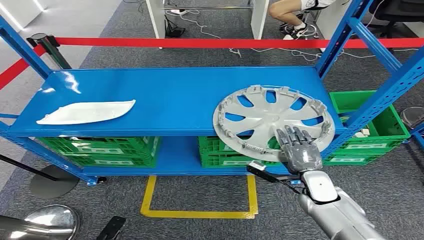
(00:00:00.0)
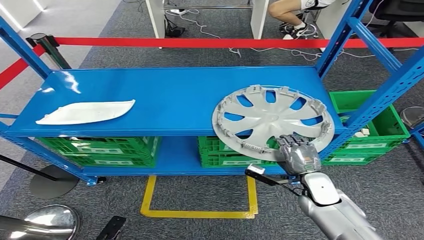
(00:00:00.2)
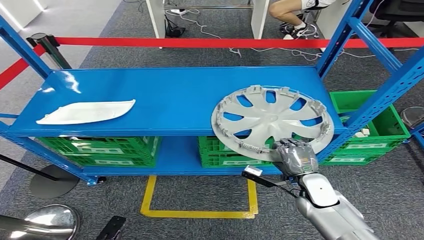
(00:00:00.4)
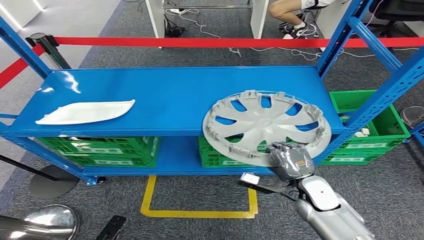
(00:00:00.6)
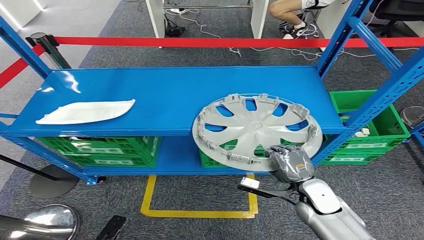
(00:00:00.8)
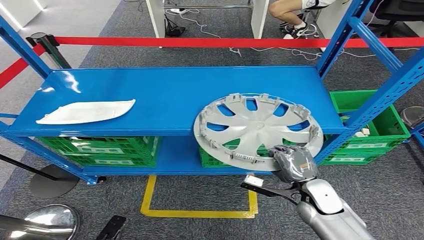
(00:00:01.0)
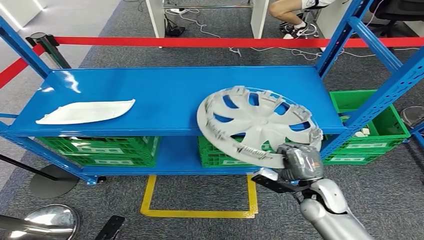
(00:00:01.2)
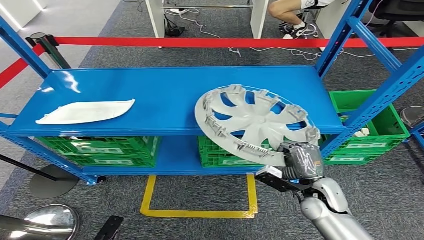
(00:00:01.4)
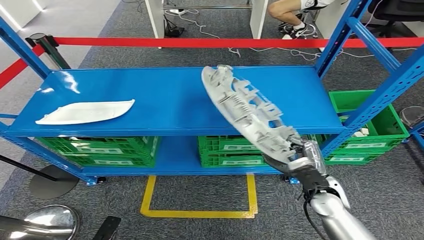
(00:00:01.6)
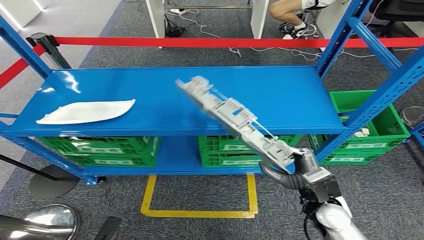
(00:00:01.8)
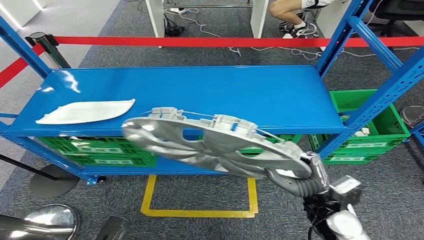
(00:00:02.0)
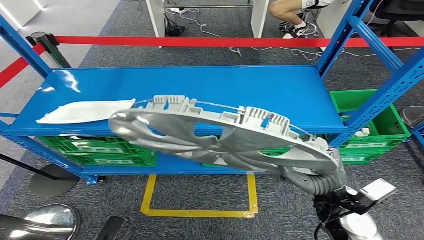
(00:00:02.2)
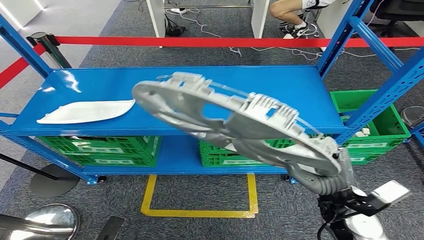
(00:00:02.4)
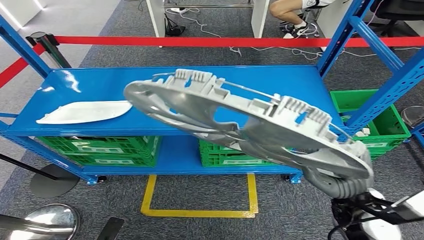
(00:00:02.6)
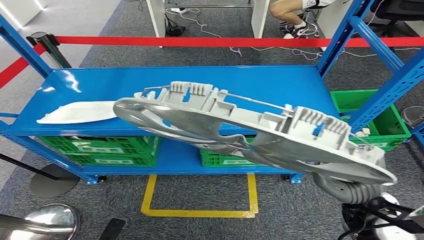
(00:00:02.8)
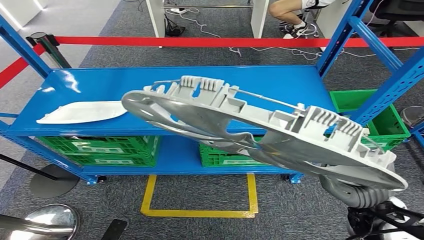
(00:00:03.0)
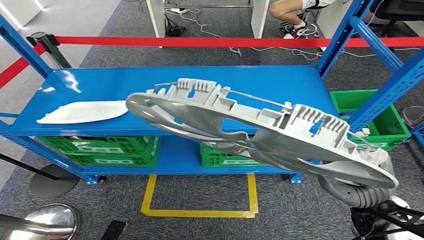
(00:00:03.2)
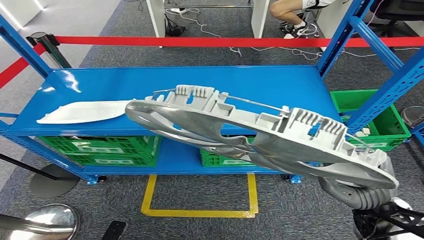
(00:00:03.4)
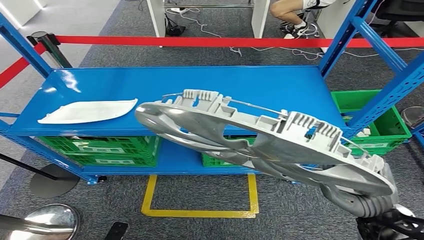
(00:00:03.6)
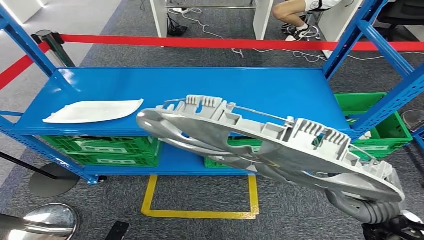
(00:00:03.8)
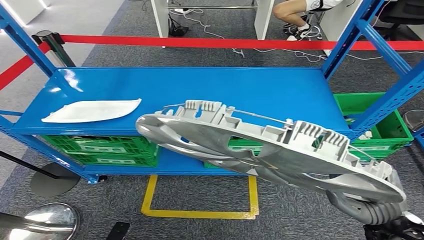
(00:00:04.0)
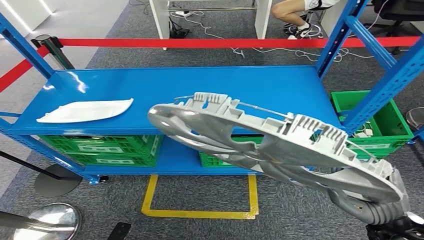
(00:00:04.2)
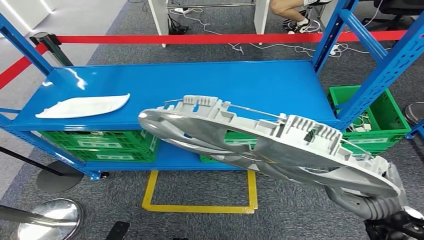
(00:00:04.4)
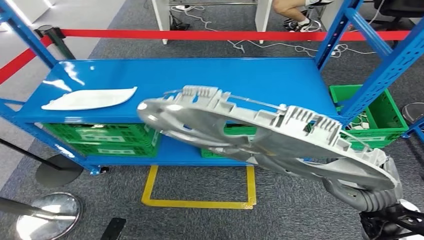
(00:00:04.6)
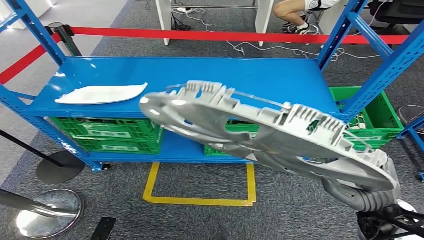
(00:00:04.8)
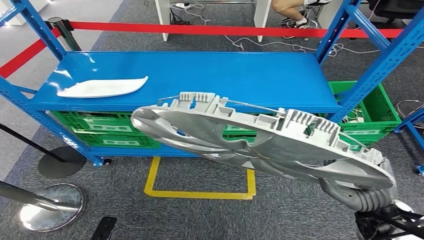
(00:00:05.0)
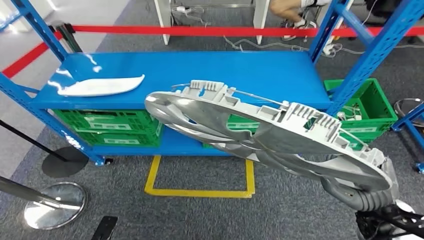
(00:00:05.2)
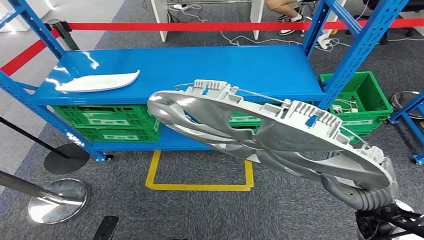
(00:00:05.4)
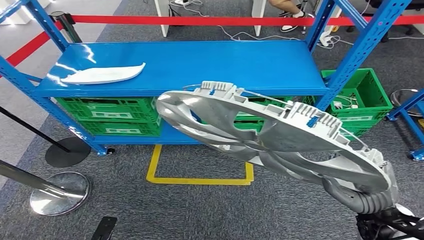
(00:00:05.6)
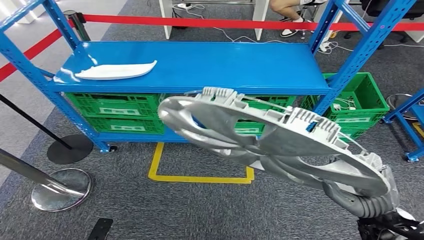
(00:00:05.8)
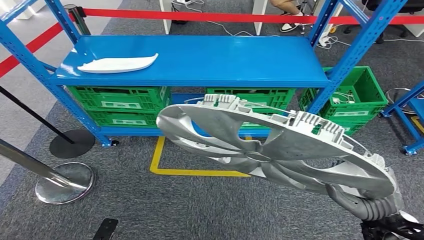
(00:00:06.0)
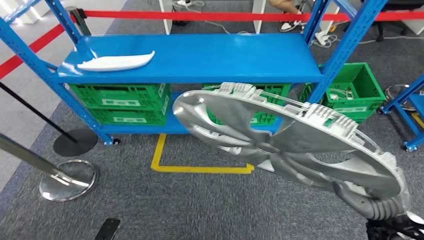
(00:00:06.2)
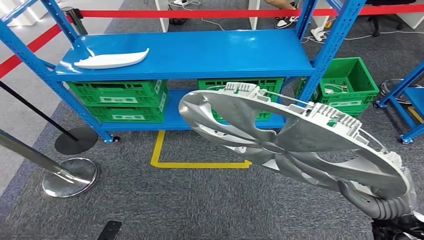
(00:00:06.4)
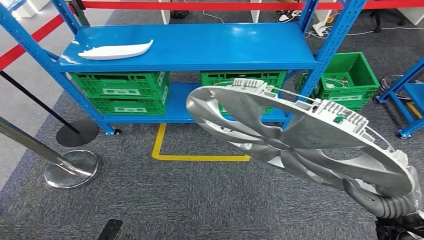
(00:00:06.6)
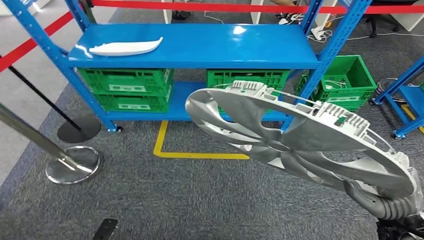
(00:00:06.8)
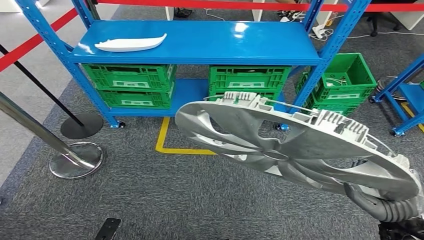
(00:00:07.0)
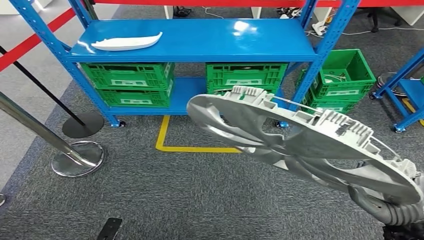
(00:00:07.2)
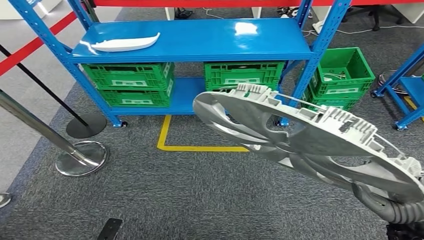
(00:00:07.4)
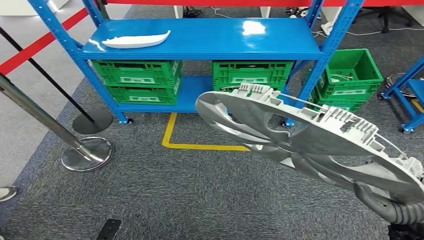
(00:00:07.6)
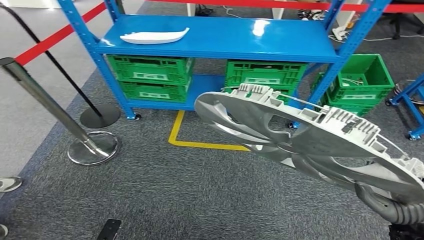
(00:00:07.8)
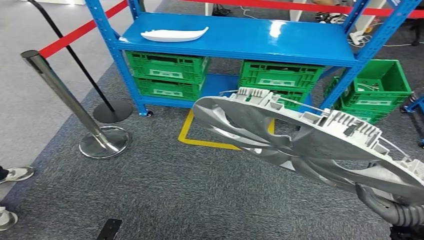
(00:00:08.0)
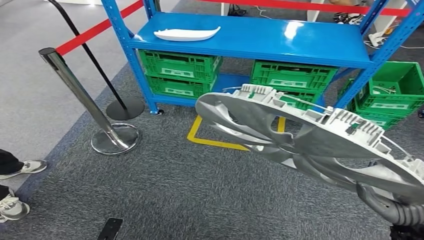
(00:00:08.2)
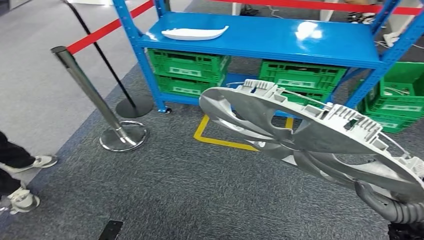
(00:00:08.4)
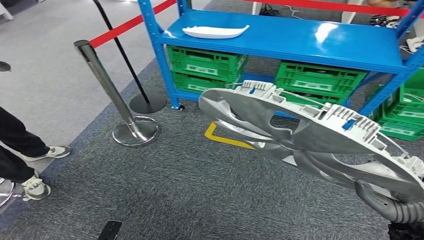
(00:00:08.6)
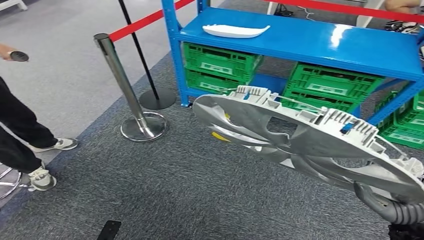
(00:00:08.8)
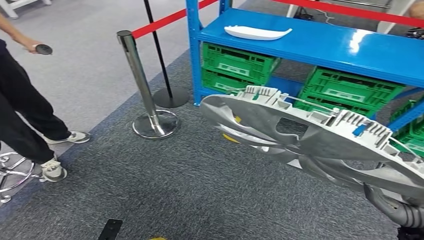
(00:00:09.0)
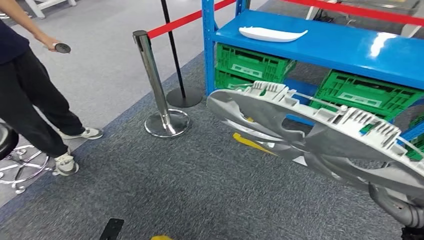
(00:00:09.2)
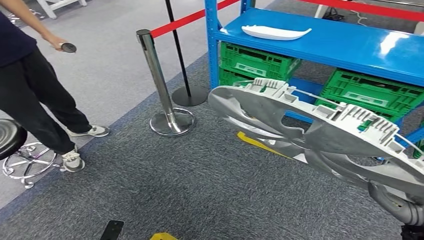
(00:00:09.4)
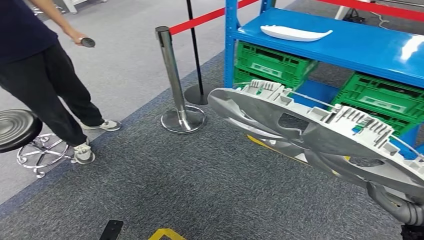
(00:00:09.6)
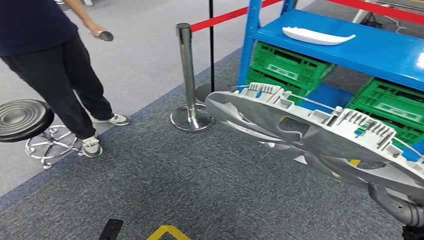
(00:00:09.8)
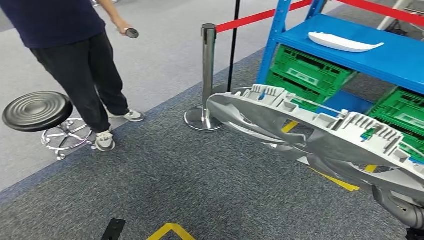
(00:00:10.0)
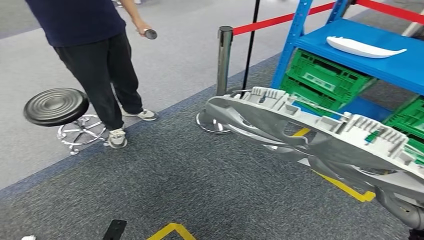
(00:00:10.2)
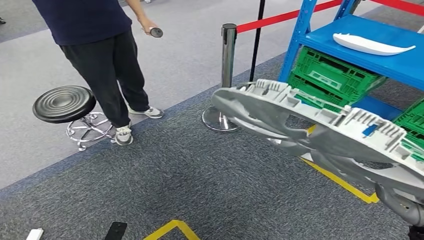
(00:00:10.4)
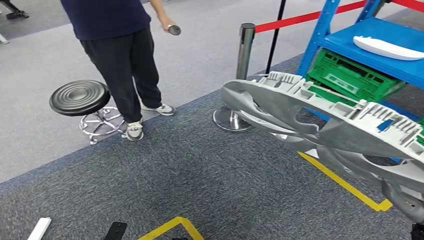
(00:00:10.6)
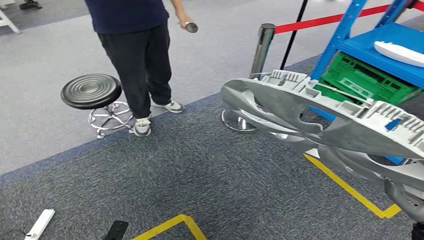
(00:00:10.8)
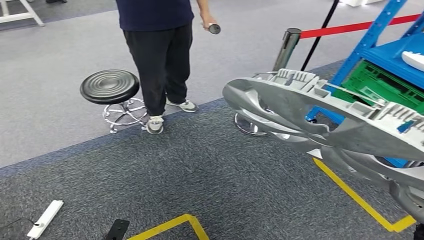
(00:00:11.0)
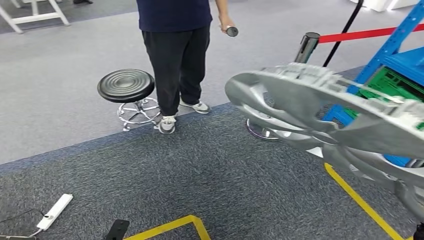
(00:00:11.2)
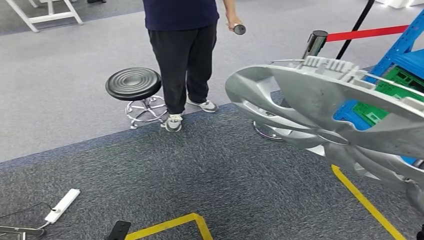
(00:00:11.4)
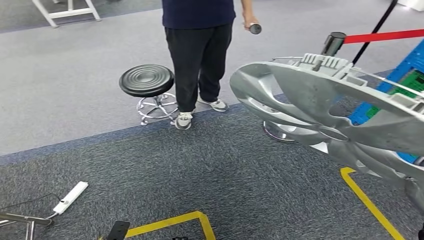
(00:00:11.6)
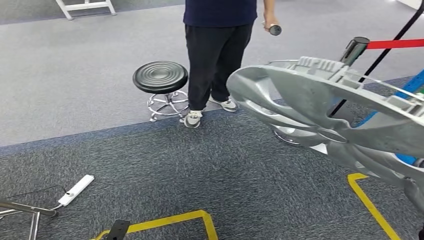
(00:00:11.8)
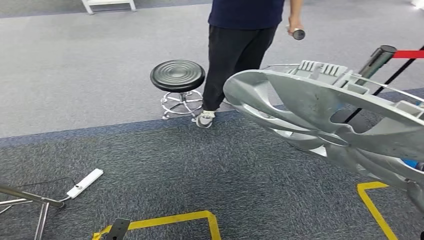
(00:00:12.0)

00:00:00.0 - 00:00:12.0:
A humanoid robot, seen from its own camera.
Step, 00:00:00.0 - 00:00:04.2: Pick up the small component from the shelf.

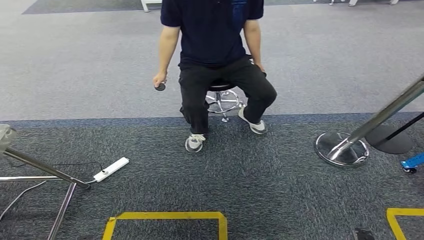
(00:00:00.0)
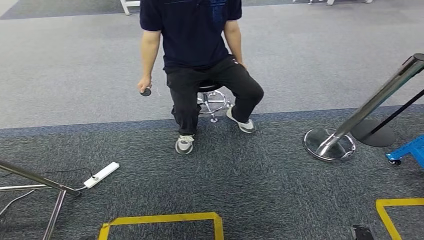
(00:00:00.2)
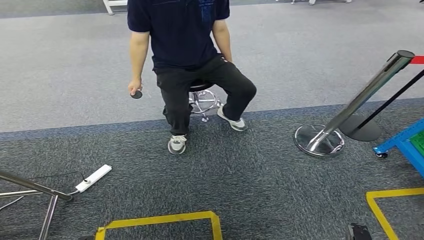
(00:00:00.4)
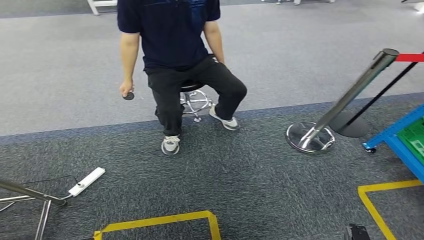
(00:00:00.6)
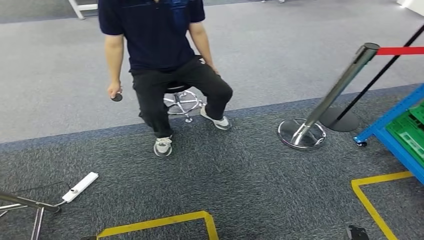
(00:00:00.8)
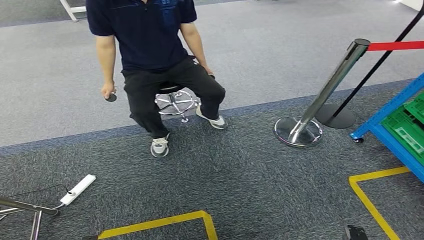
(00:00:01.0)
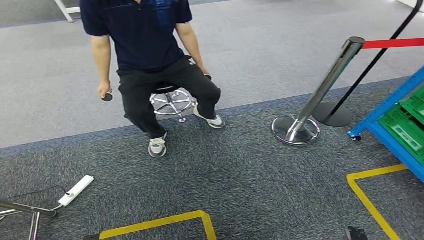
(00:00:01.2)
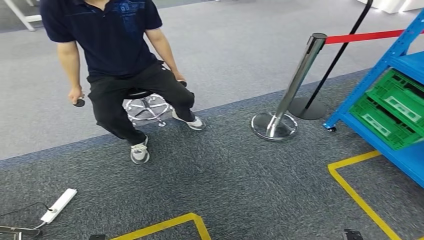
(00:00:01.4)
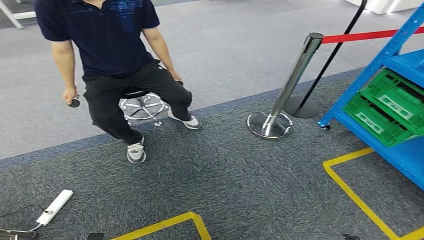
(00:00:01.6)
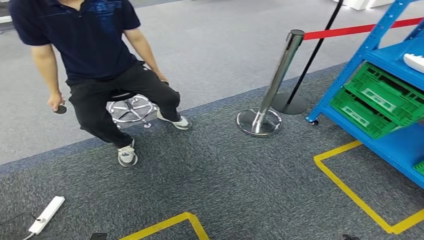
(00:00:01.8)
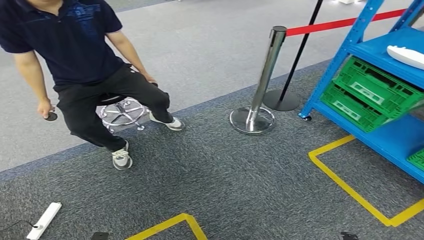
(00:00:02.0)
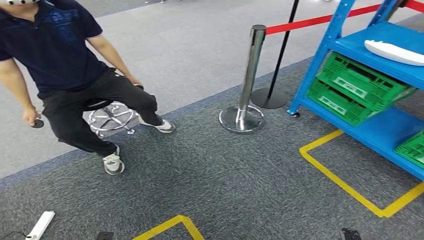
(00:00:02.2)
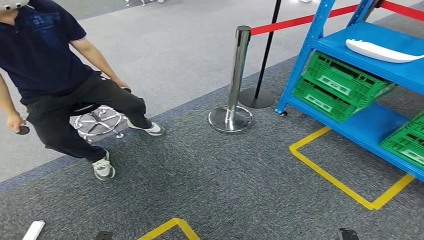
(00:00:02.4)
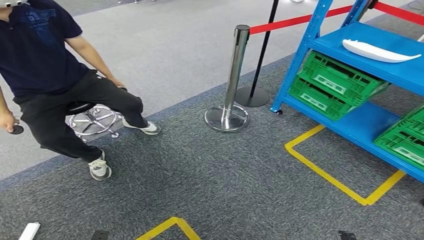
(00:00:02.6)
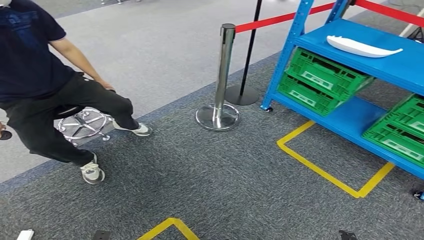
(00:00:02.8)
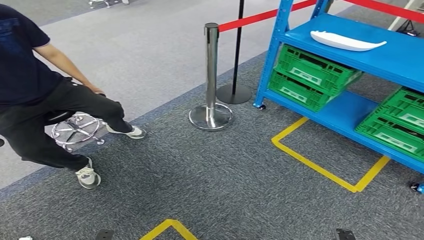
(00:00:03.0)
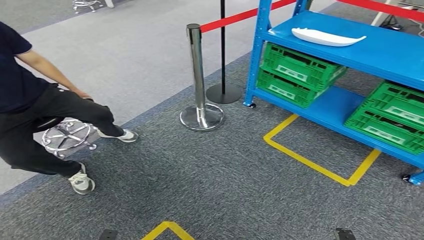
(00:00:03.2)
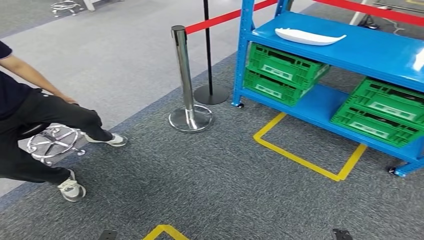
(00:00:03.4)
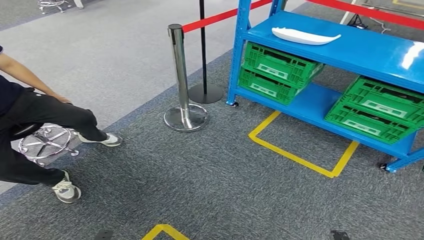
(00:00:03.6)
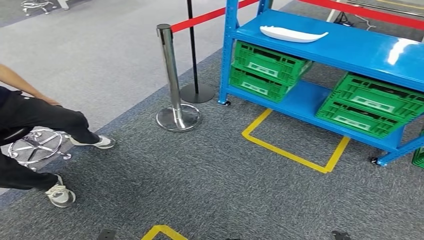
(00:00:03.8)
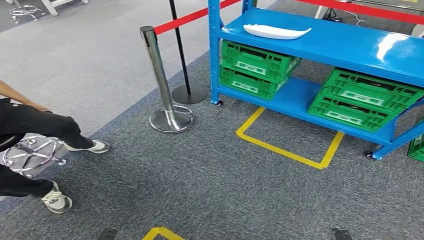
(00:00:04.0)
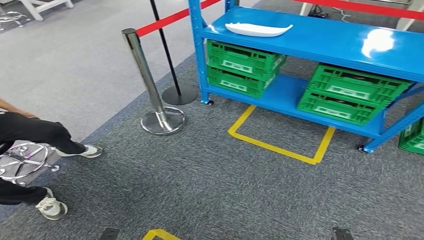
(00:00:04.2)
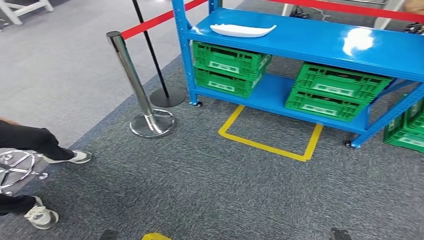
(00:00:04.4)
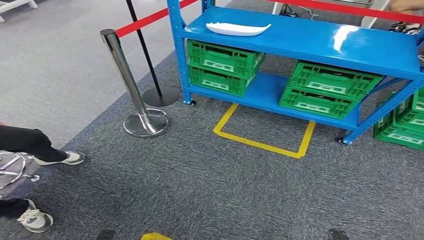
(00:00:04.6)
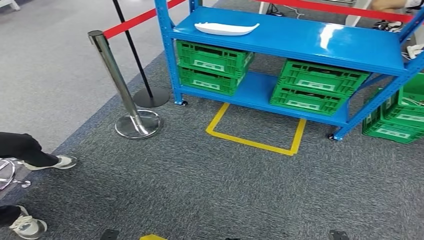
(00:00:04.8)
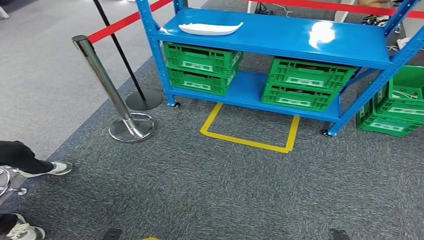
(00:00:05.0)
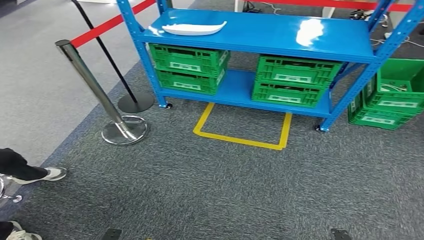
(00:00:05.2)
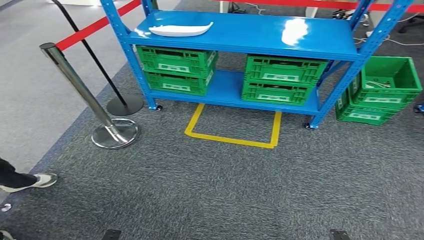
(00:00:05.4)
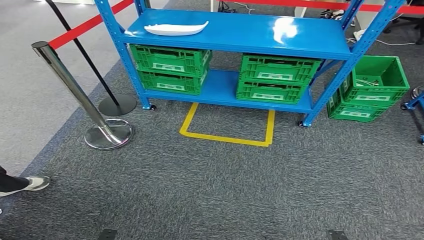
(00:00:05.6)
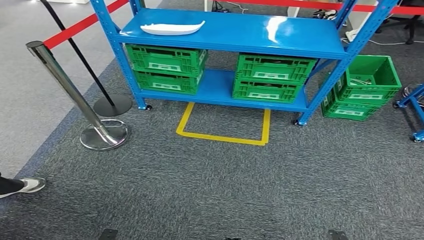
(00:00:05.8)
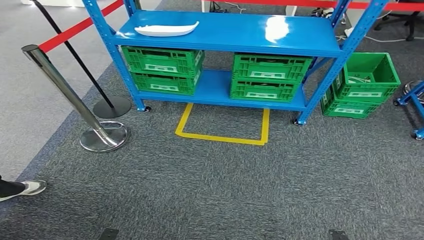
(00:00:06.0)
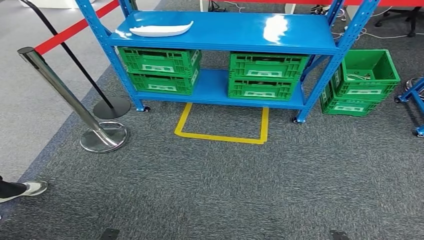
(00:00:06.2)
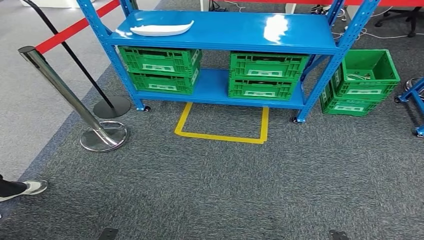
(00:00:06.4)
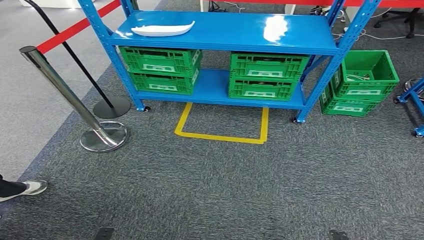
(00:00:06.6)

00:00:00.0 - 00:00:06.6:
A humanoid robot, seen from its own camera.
Step, 00:00:00.0 - 00:00:06.6: Return to the initial position at the workbench.
